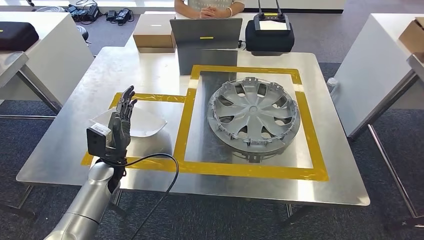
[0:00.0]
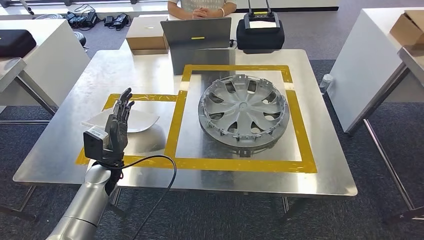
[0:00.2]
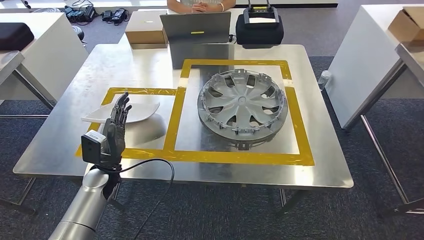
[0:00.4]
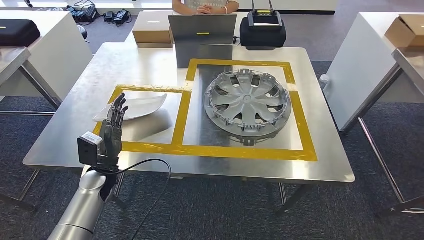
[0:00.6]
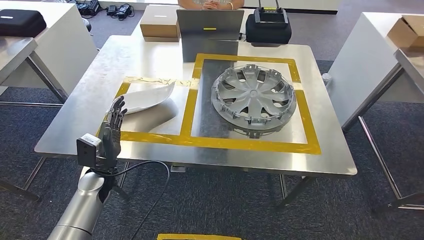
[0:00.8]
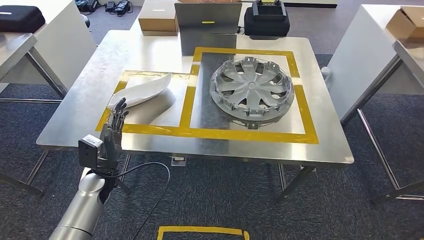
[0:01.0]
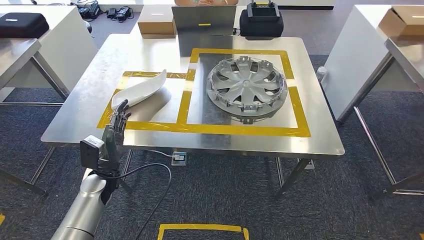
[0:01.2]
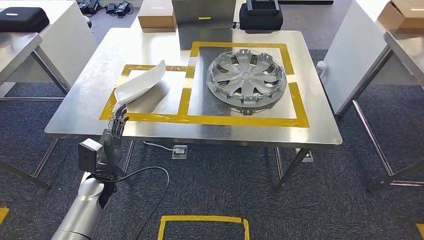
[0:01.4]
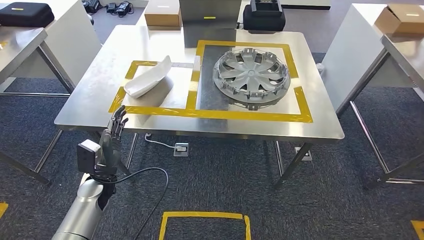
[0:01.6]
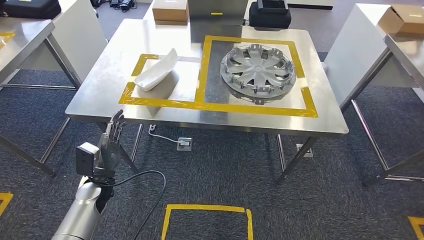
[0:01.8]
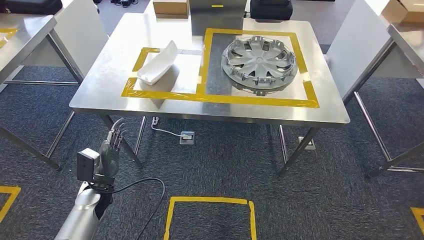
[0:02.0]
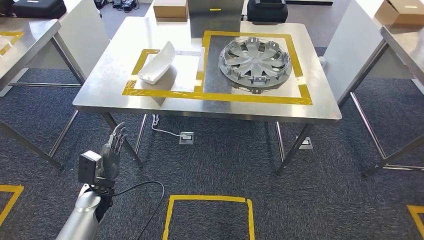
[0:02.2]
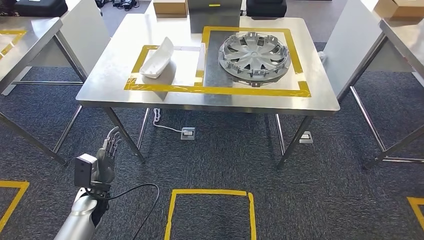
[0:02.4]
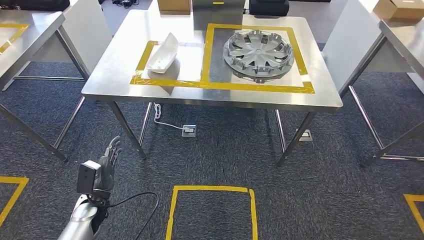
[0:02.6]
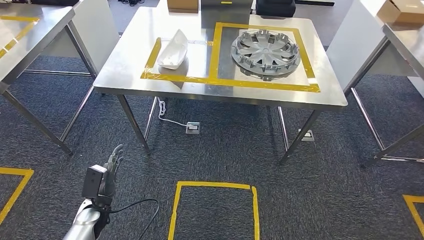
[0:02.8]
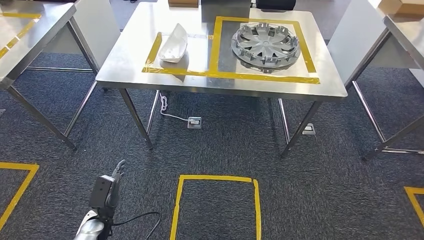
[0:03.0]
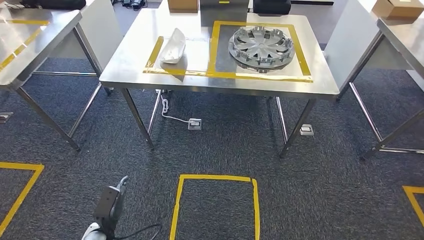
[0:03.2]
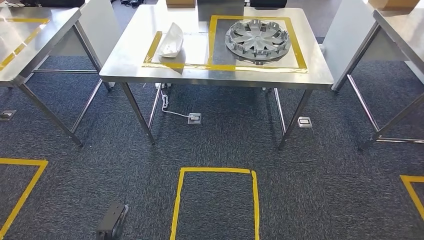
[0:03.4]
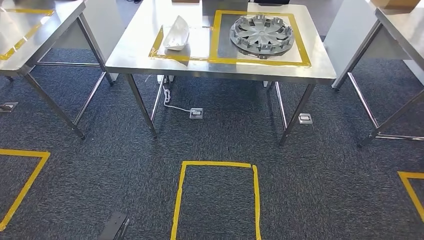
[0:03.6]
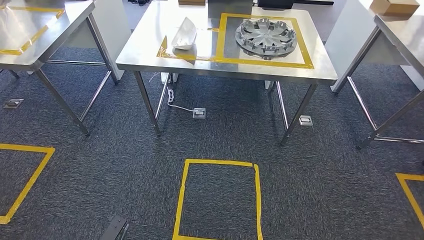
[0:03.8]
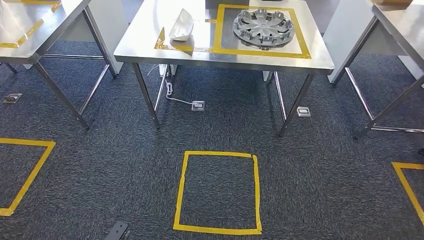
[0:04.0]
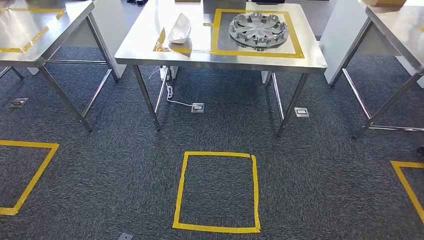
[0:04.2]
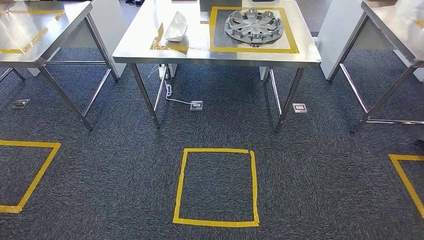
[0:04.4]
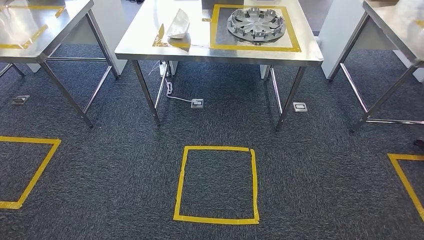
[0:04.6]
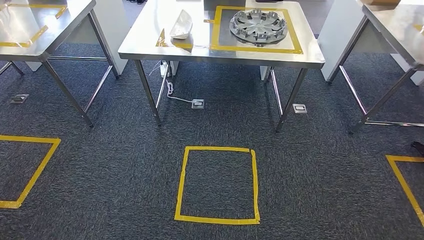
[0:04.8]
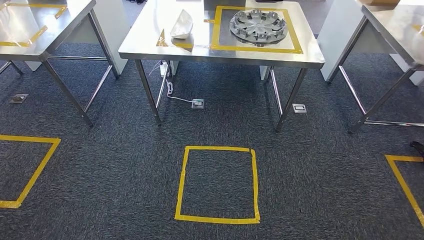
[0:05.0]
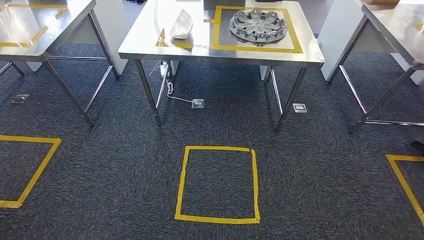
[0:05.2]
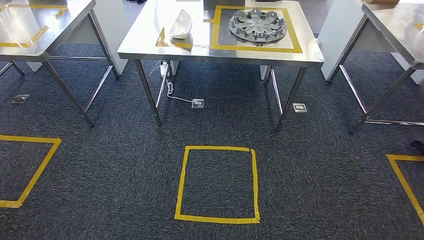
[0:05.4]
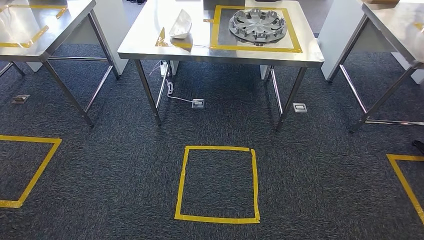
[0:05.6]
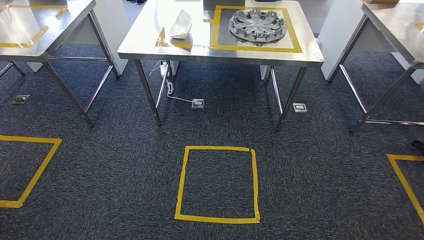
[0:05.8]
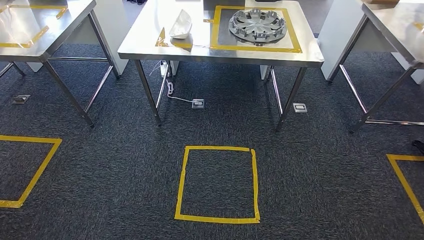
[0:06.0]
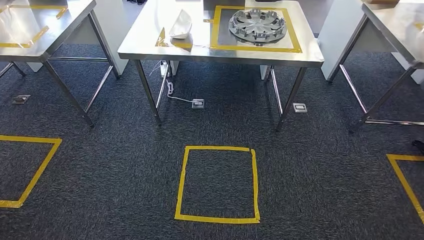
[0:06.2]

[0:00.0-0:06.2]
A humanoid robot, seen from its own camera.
Step, 0:01.0 to 0:06.0: Move to the initial position of the workbench.
0:04.6 to 0:06.2: The hands move only a little.
